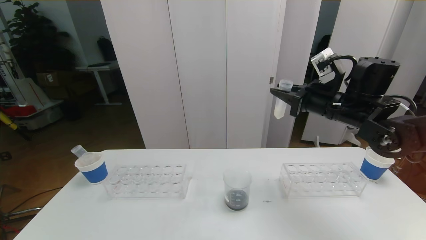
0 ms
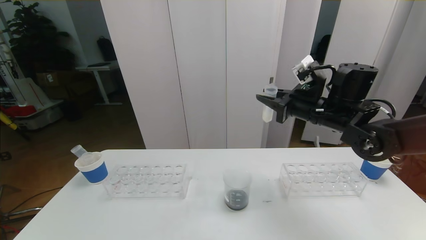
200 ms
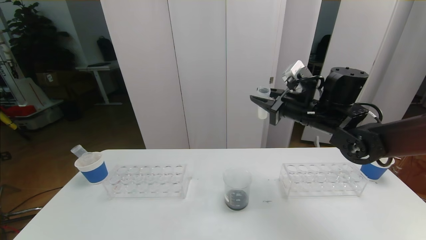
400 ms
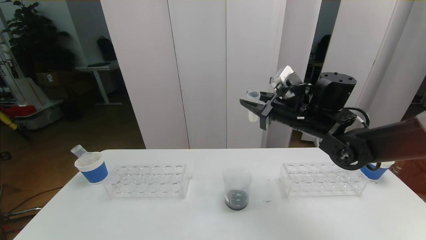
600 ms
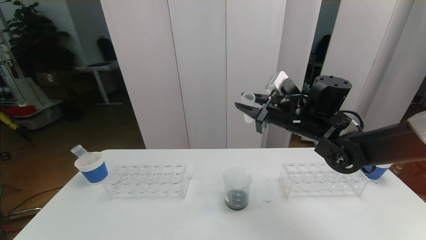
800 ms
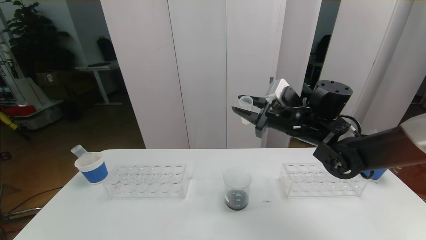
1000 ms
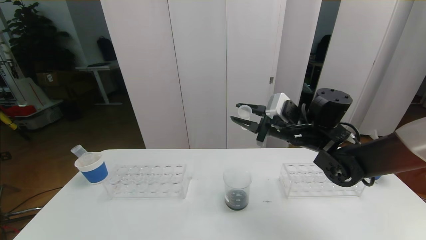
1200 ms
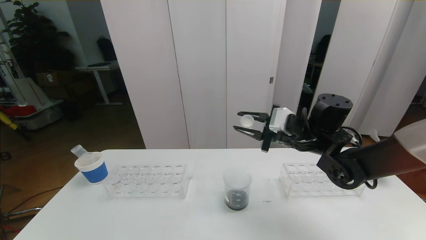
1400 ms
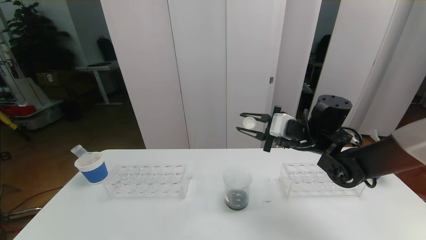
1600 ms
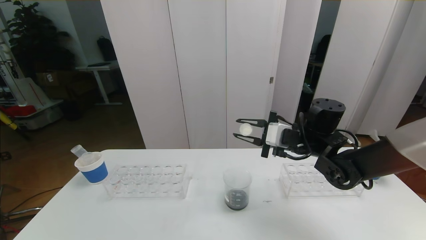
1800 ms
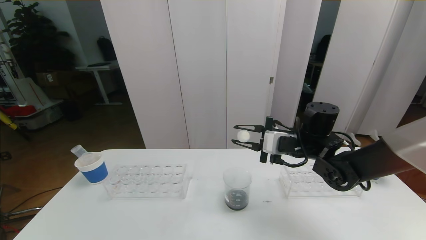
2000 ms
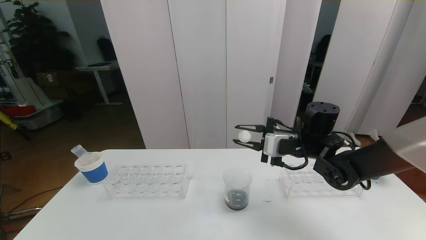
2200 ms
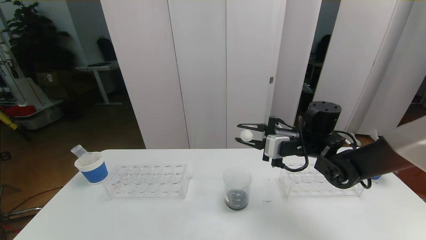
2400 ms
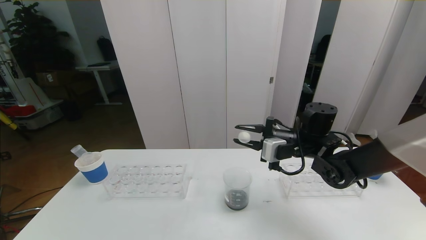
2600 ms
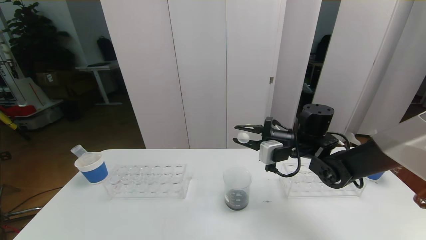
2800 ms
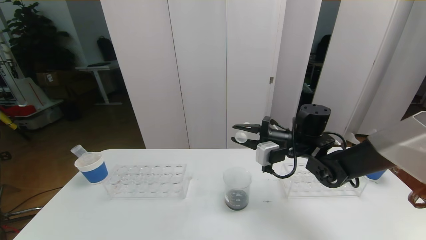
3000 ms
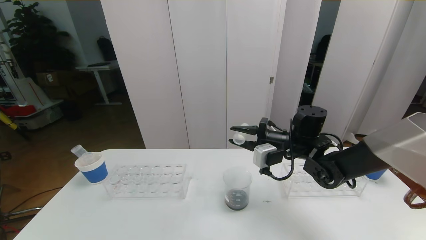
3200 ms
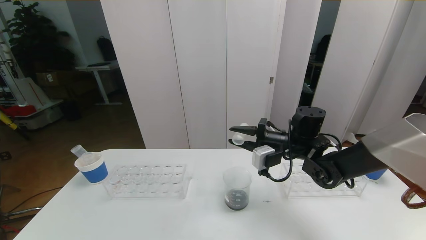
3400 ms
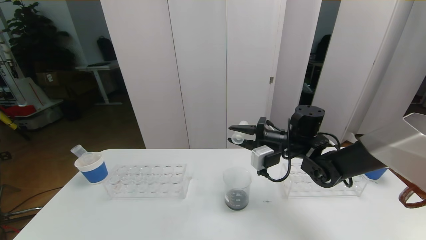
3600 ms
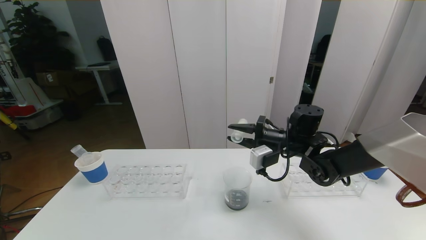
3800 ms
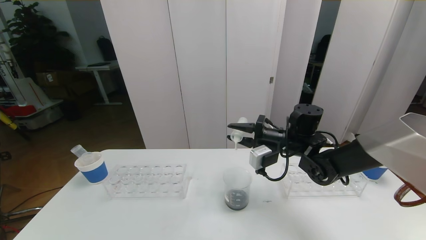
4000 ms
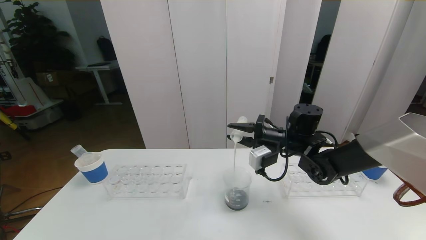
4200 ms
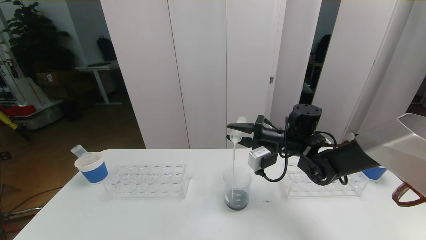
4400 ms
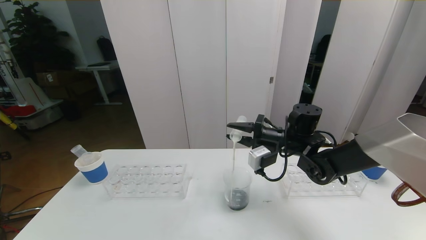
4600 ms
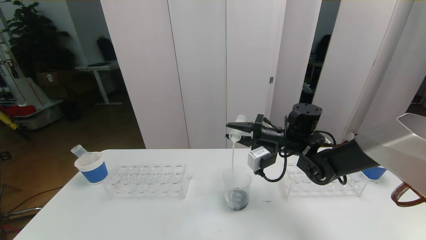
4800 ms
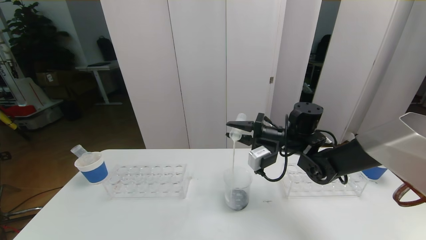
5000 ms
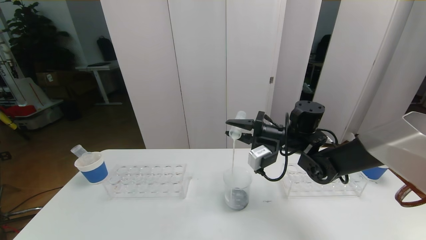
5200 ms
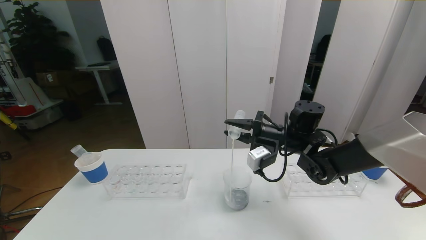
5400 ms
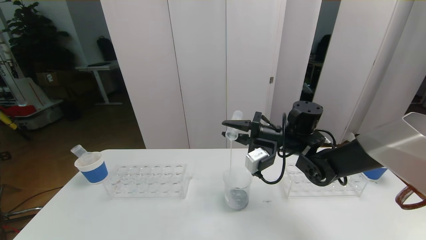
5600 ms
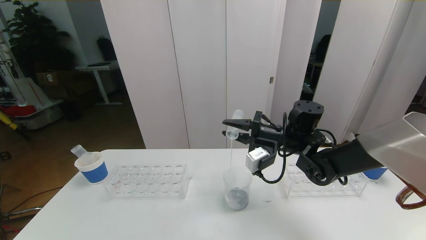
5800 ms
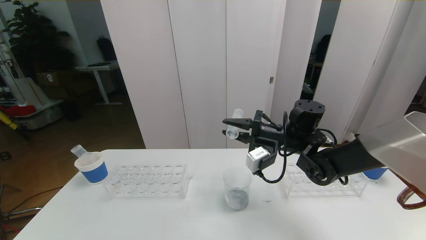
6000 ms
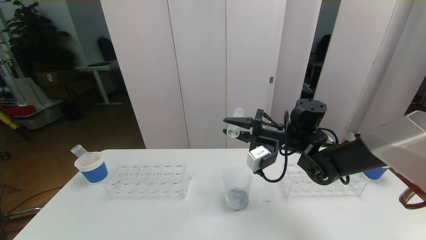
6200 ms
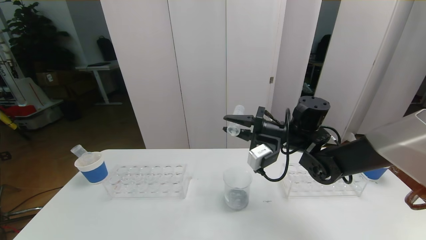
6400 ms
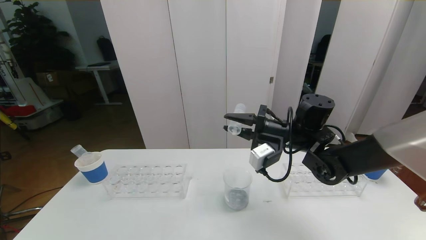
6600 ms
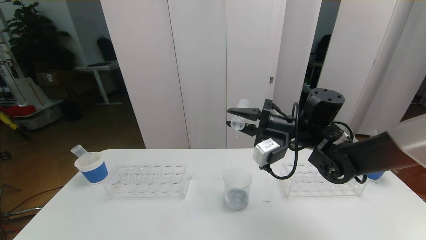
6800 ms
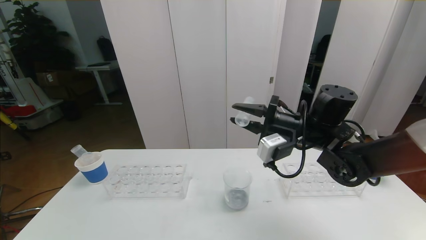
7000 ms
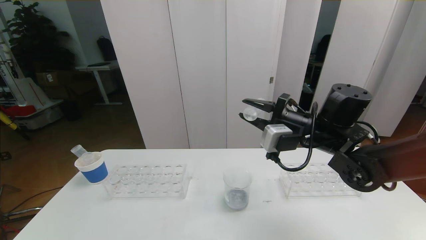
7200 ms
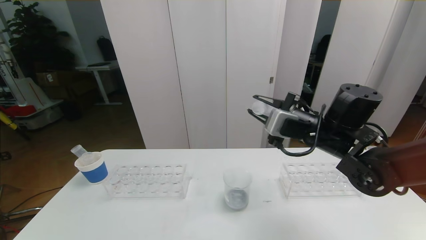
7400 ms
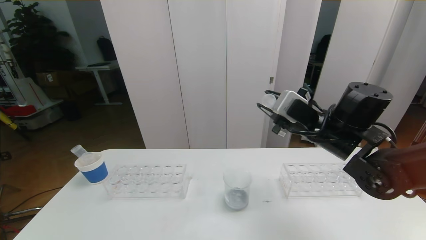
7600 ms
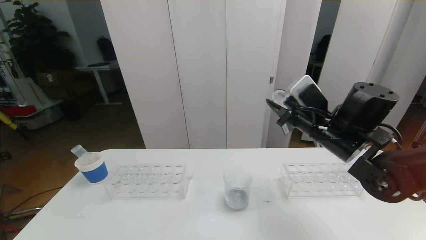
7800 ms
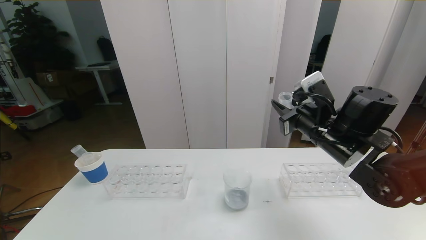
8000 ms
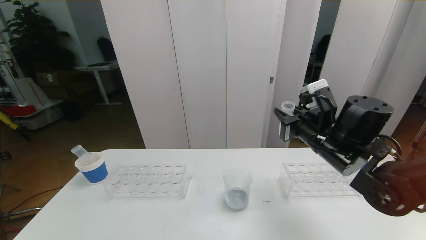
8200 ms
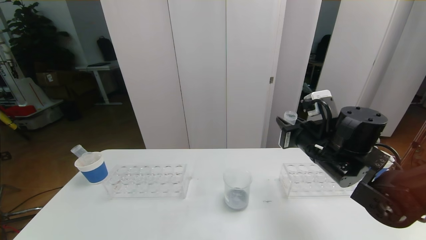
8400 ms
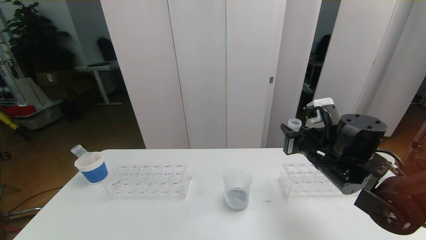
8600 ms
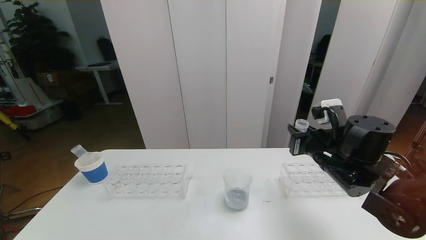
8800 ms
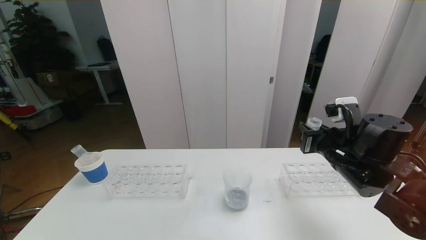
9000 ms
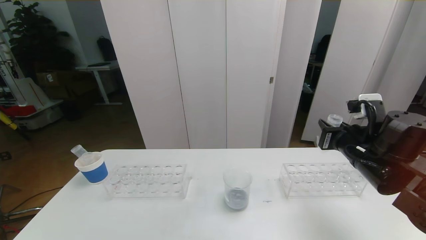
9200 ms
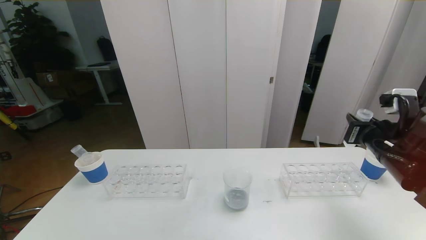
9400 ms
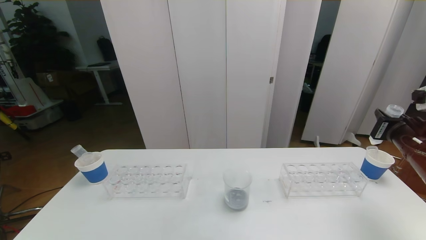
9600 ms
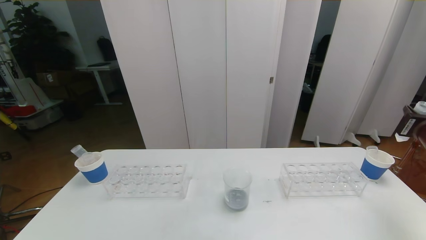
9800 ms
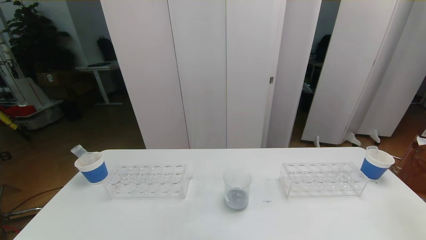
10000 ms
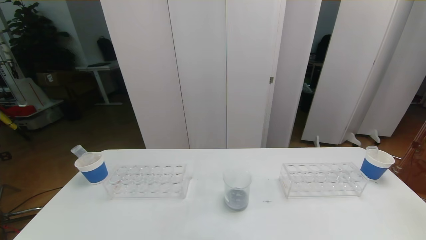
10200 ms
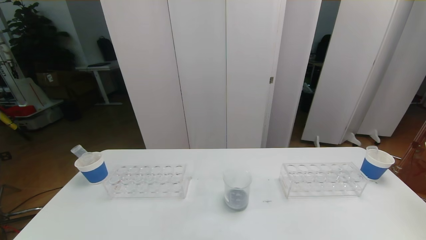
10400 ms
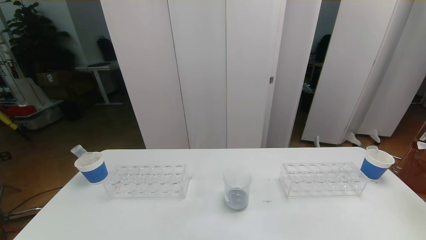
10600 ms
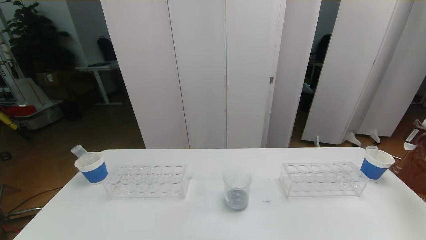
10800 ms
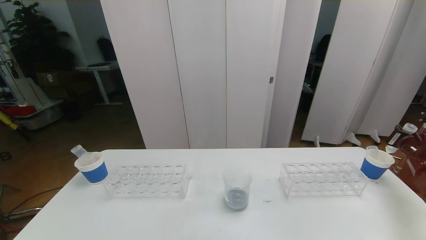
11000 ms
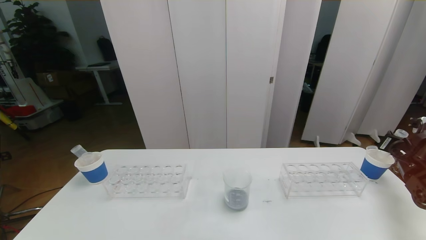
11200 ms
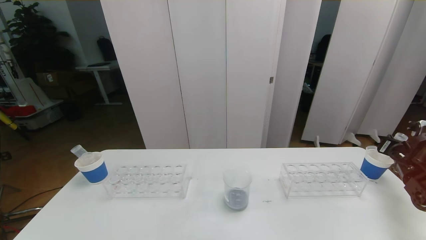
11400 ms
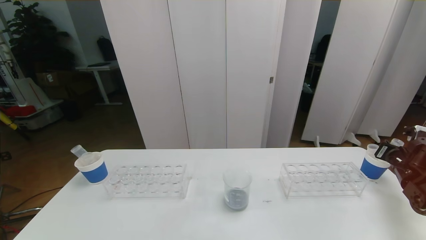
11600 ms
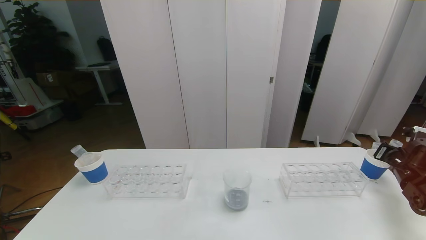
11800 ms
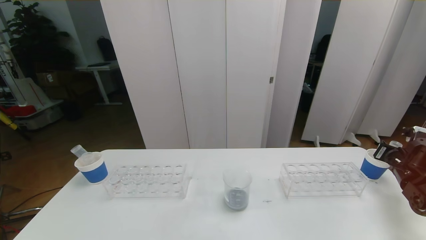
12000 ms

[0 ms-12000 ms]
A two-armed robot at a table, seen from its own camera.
Task of the whole recording: pick up the test tube with red pigment the test tube with blue pigment and the test tube with white pigment by grippers and pour them into the beaker.
0 ms to 1600 ms: The right gripper travels downward and to the left by about 10 cm.
3000 ms to 4400 ms: The grippers make only small movements.
4400 ms to 6000 ms: The grippers stay close to where they were, moving slightly.
6000 ms to 7600 ms: The right gripper moves backward and upward, approximately 10 cm.
7600 ms to 9000 ms: The right gripper shifts by approximately 5 cm.
9000 ms to 10400 ms: The right gripper heads to the right, covering approximately 25 cm.
10400 ms to 12000 ms: The right gripper shifts some 10 cm downward and forward.

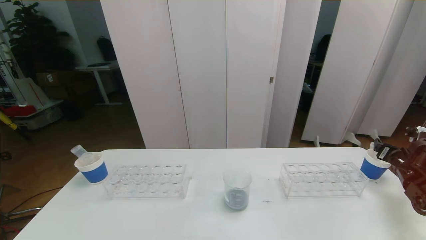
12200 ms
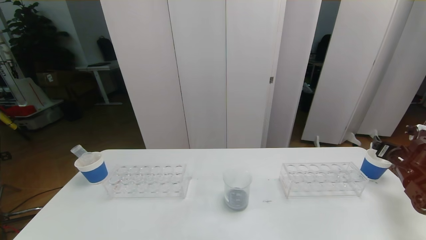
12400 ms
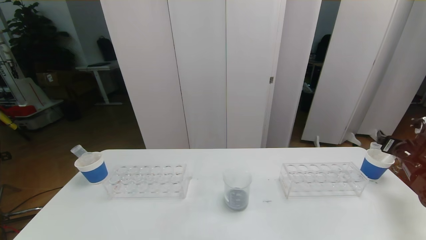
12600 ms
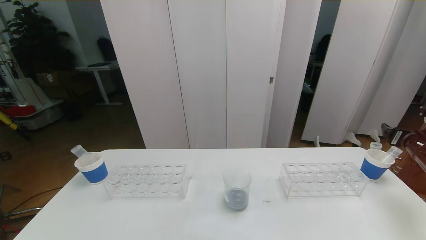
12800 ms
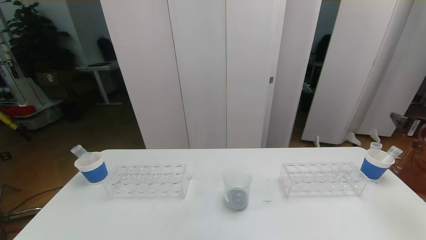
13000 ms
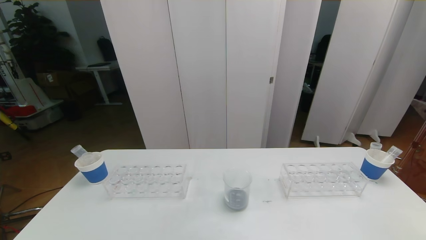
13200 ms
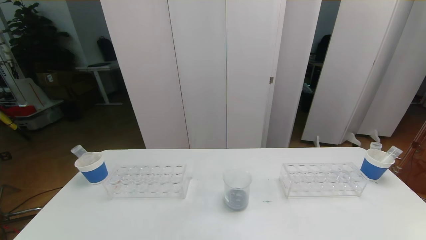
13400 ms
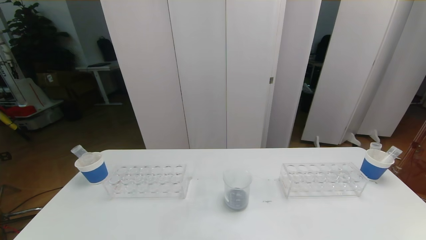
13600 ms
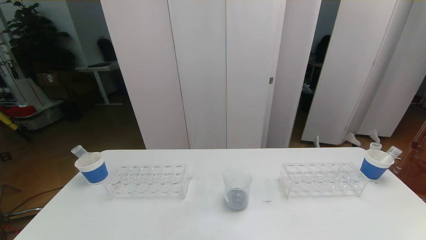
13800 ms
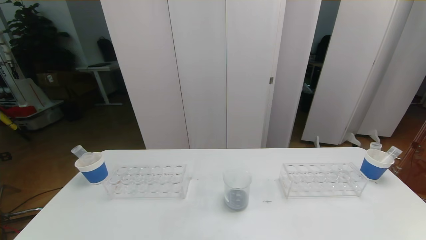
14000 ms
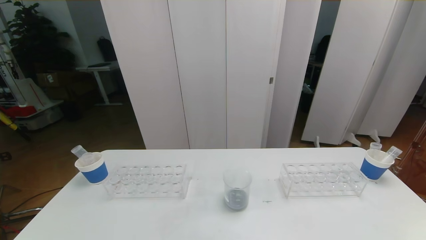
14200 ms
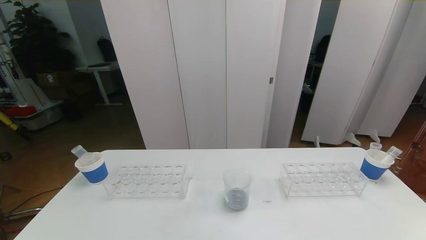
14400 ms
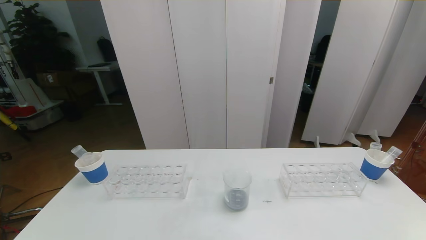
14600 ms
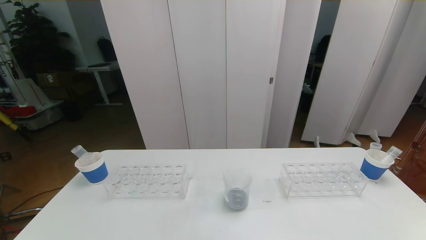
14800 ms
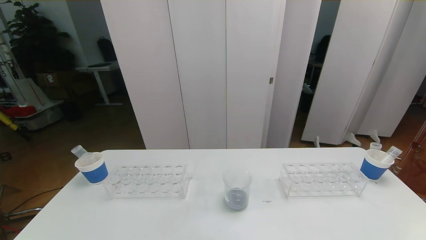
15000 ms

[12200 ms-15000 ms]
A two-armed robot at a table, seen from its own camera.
Task of the whole recording: pick up the test tube with red pigment the test tube with blue pigment and the test tube with white pigment by grippers and pour them into the beaker.
Step, 12200 ms to 15000 ms: Pour the white reagent into the graduated cylinder and place the test tube into the paper cup.
12200 ms to 13600 ms: The right gripper travels backward and upward by roughly 35 cm.
